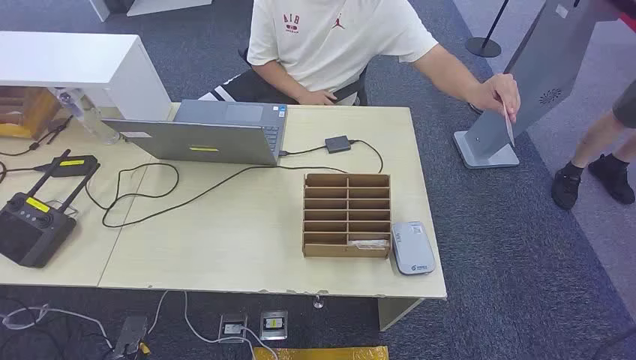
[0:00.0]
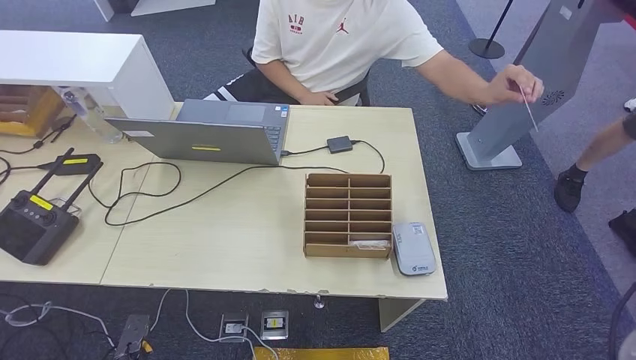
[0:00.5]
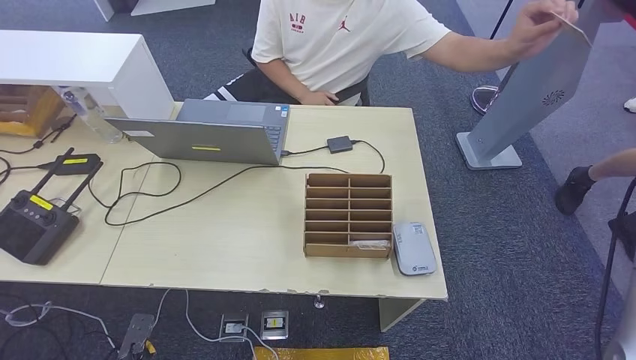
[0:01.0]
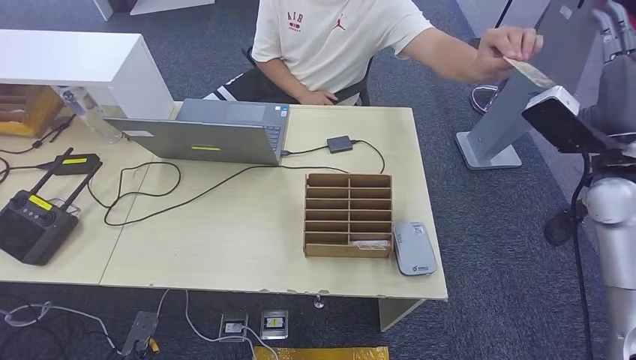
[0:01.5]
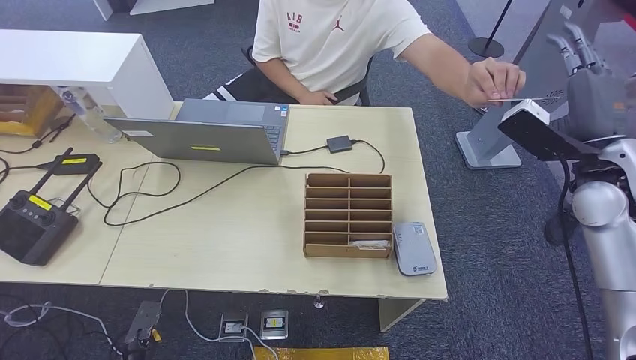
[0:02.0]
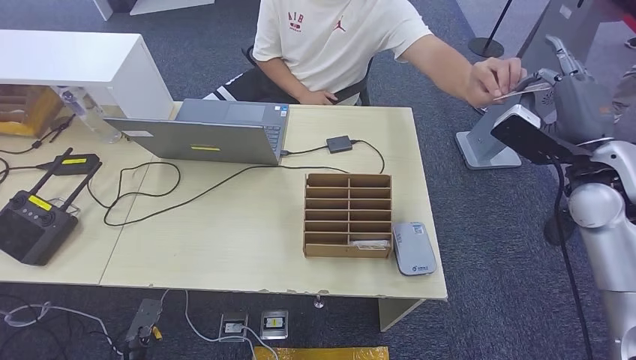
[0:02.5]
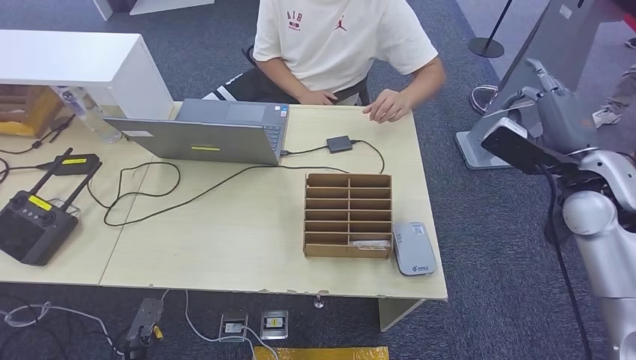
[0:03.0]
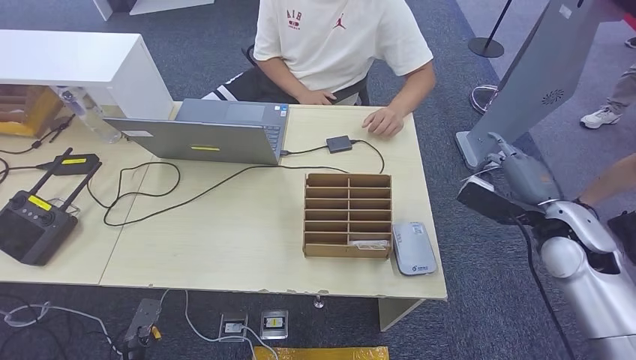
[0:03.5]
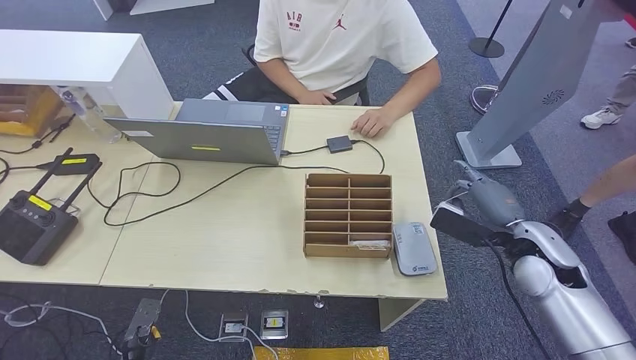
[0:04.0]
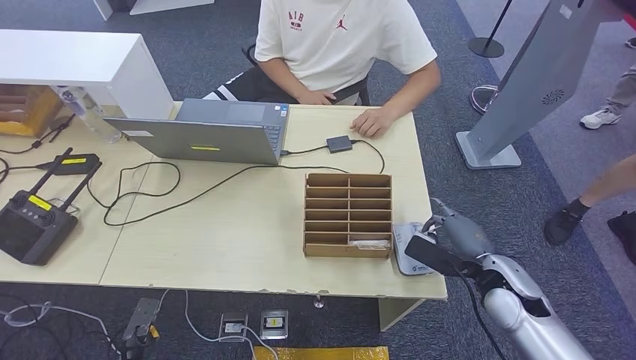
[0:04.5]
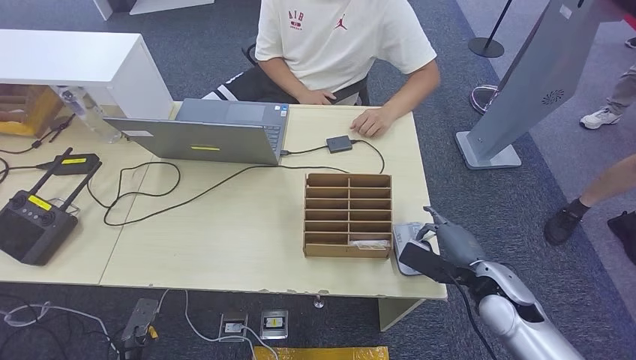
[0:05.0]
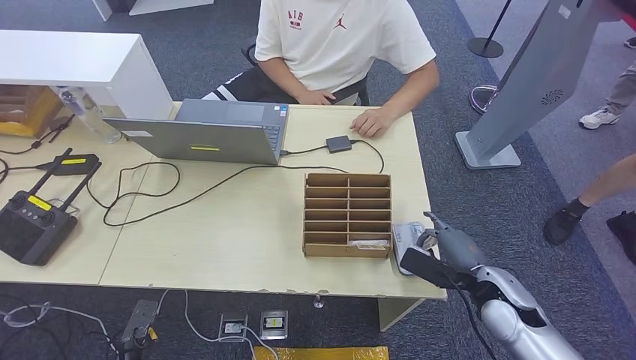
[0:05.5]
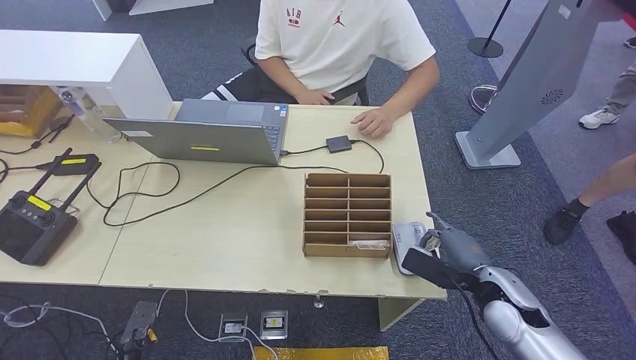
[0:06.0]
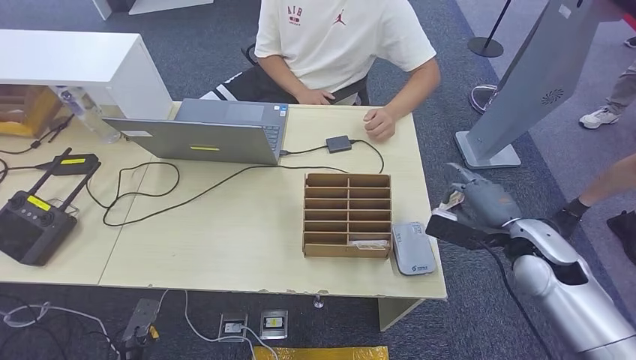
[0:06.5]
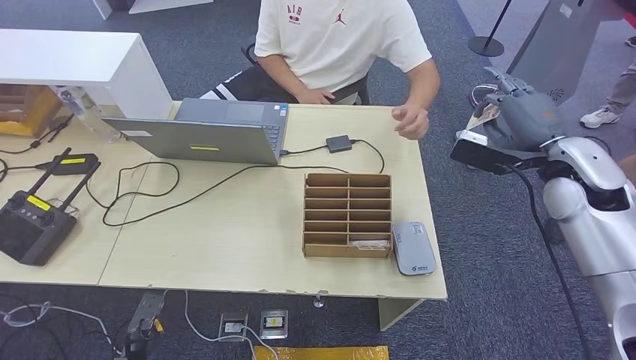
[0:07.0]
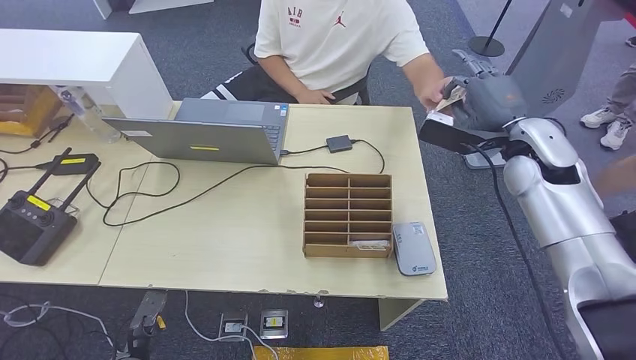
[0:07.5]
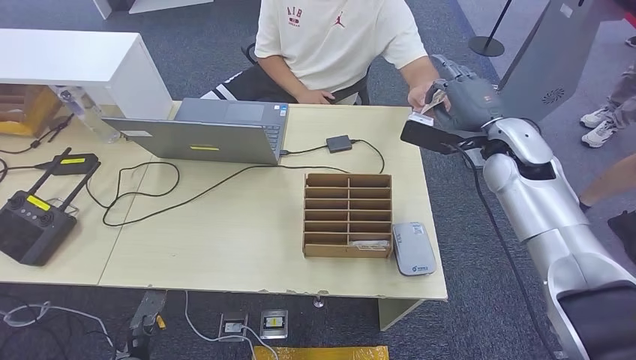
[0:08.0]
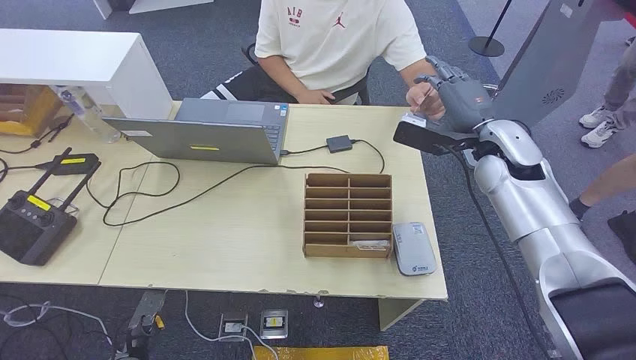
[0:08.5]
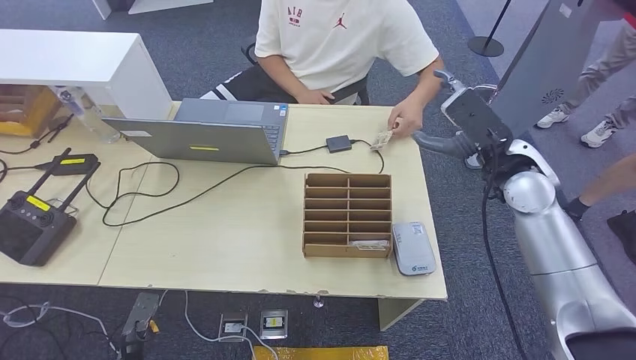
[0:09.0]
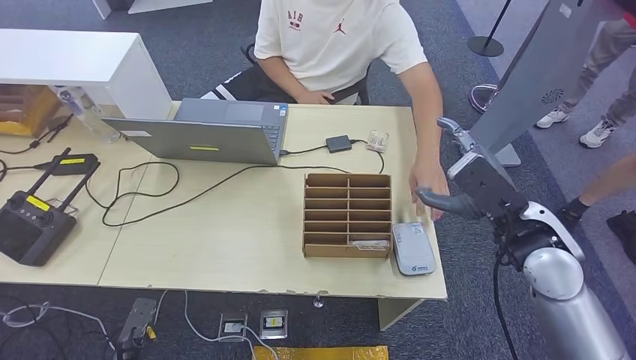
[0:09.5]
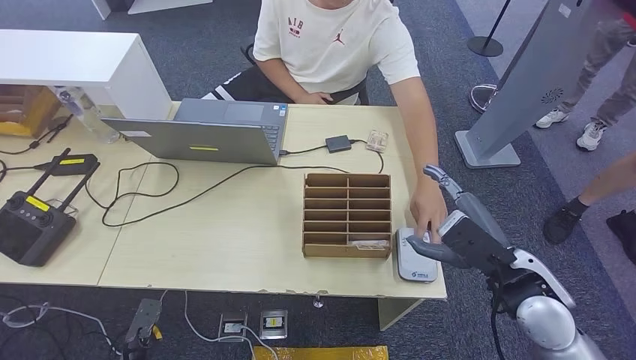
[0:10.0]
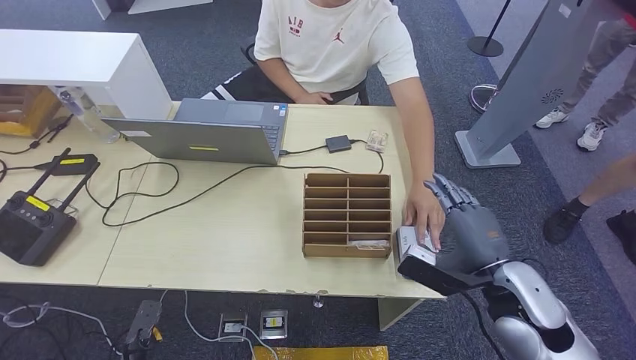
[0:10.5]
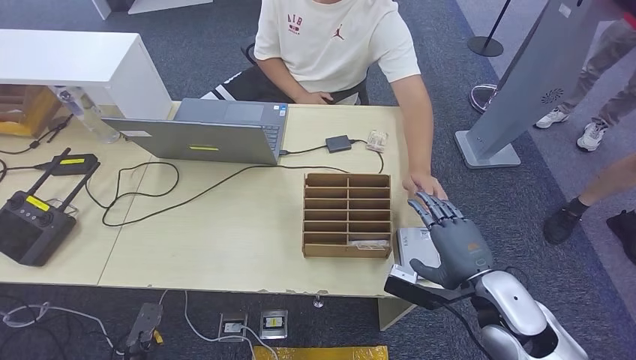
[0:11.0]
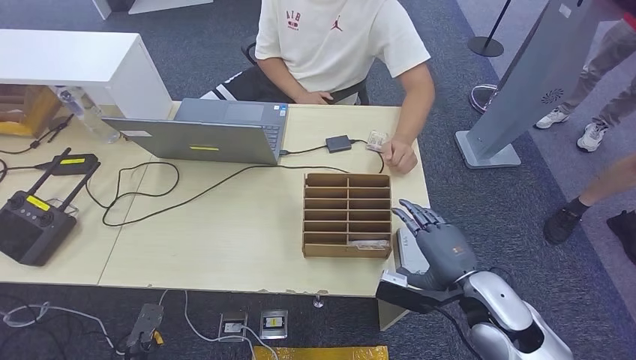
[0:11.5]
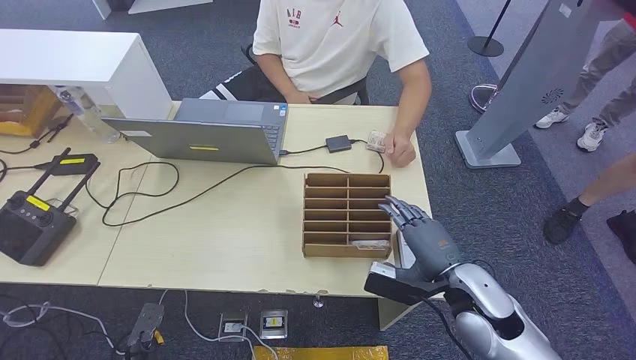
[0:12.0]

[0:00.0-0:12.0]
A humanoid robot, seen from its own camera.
Step, 0:00.0 to 0:04.0: Take the ID card from the person's hand.
Step, 0:04.5 to 0:06.5: Place the ID card on the card reader.
Step, 0:07.0 to 0:10.0: Hand the ID card to the person.
0:02.0 to 0:04.0: The right hand travels downward by approximately 15 cm.
0:04.0 to 0:06.0: The right hand goes some 10 cm downward and backward.
0:06.0 to 0:08.0: The right hand moves upward and forward, about 25 cm.
0:08.0 to 0:10.0: The right hand goes approximately 20 cm backward and downward.
0:10.0 to 0:12.0: The right hand moves downward, approximately 5 cm.

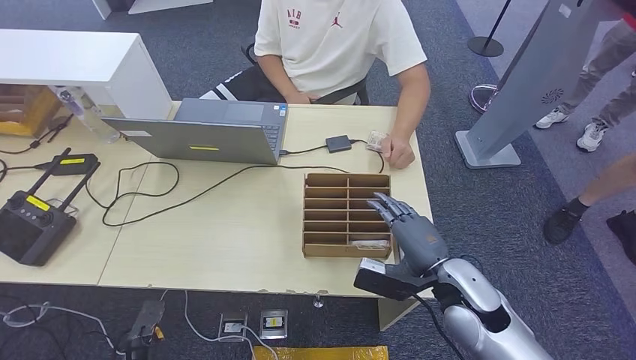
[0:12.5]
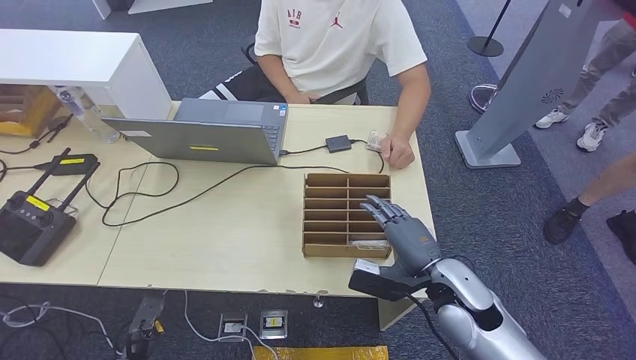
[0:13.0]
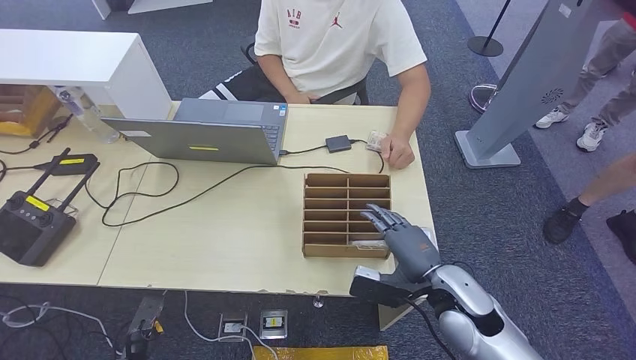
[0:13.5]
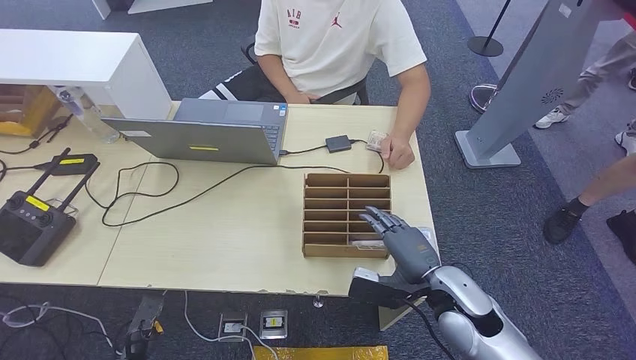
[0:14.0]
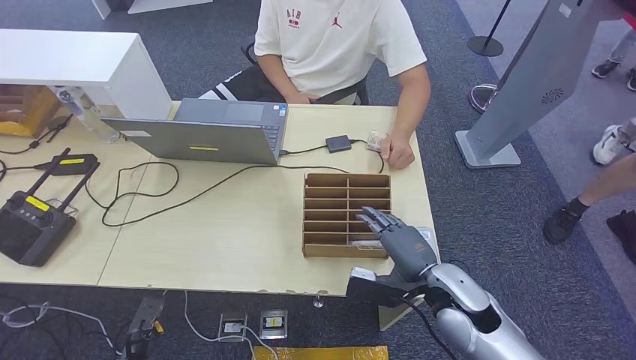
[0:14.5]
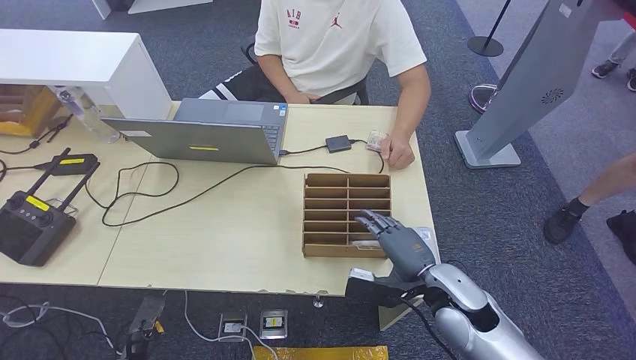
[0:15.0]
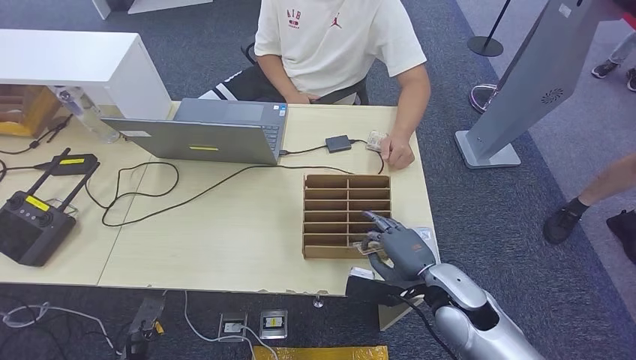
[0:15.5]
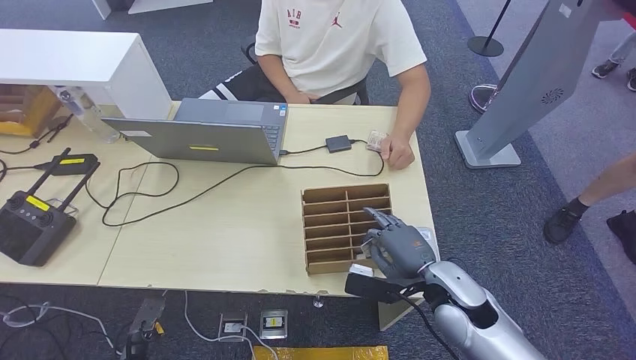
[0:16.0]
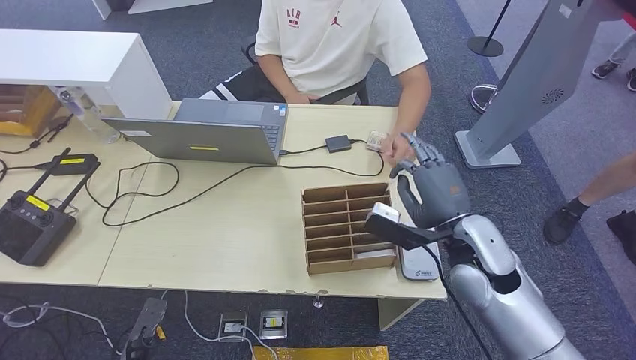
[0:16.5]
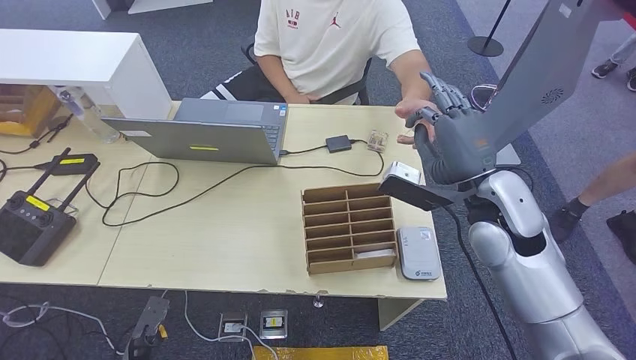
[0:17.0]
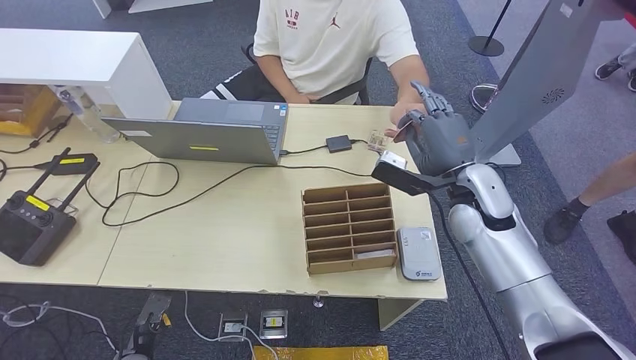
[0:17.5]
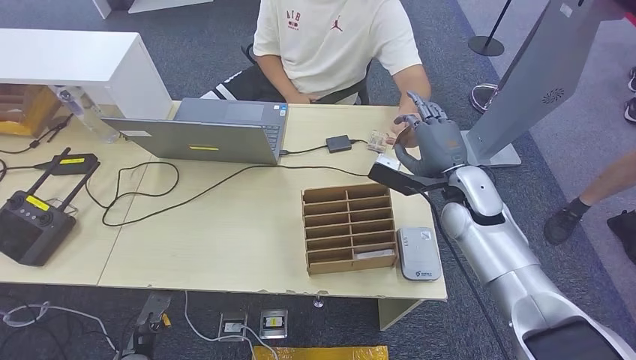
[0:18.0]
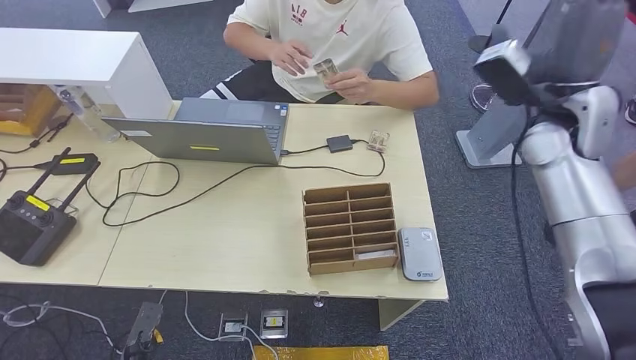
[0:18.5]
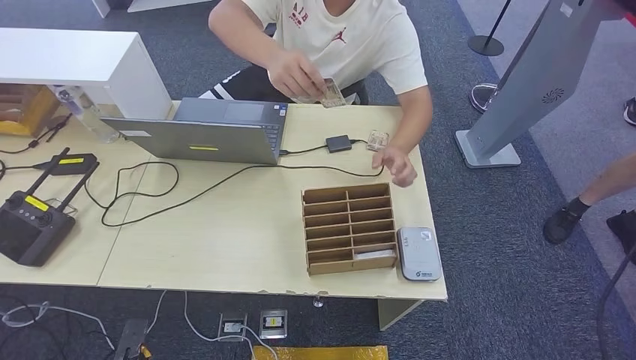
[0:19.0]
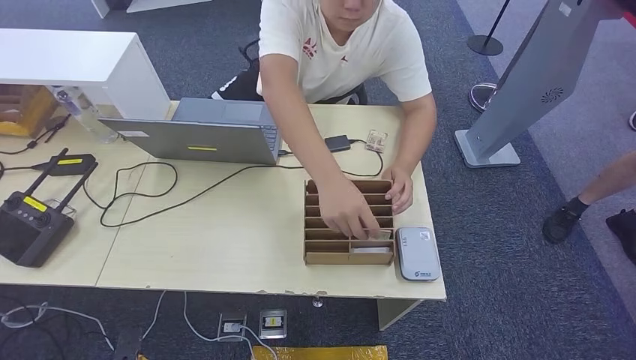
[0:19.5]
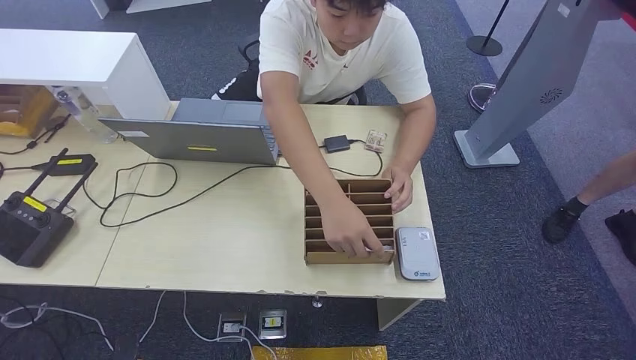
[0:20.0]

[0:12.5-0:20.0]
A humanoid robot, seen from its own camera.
Step, 0:12.5 to 0:16.5: Pick up the room key from the key card box.
Step, 0:17.0 to 0:20.0: Hand the room key to the person.
0:12.5 to 0:14.5: The hands stay close to where they were, moving slightly.
0:14.5 to 0:16.5: The right hand heads upward and forward, covering roughly 10 cm.
0:16.5 to 0:18.0: The right hand travels forward by roughly 10 cm.
